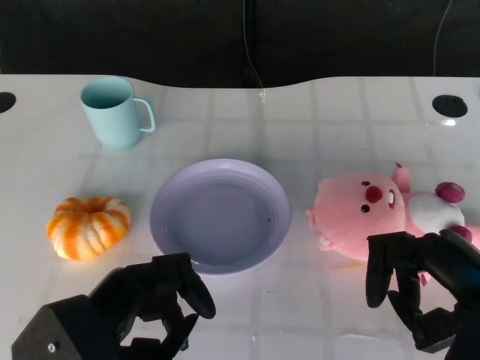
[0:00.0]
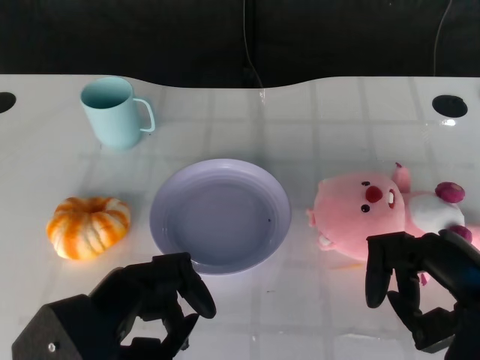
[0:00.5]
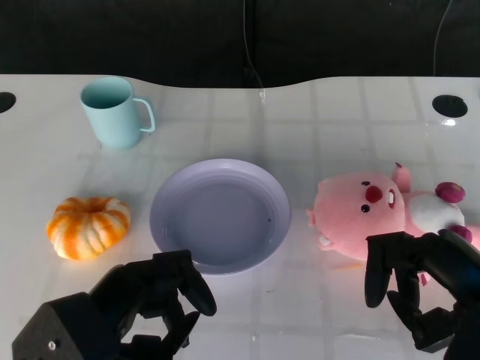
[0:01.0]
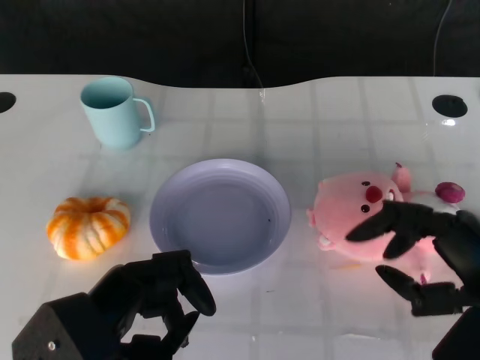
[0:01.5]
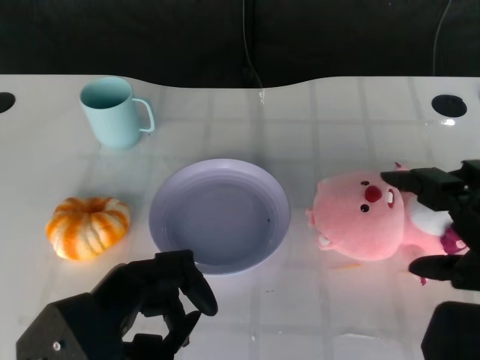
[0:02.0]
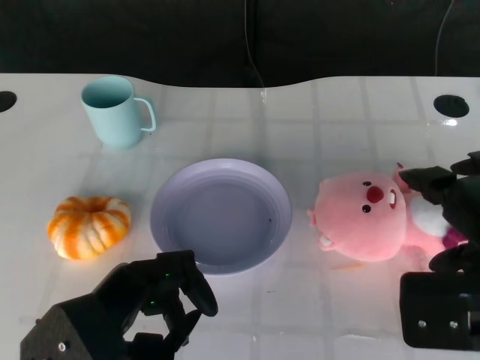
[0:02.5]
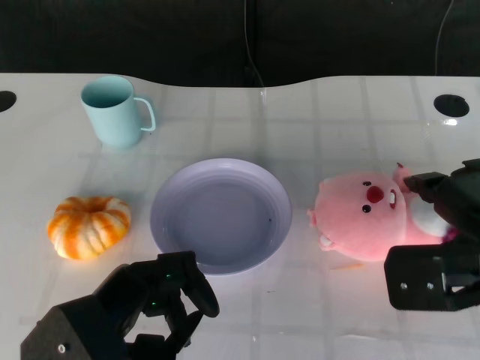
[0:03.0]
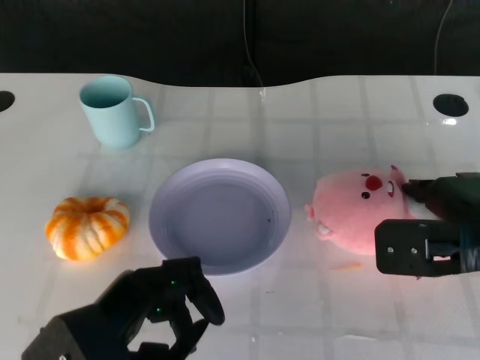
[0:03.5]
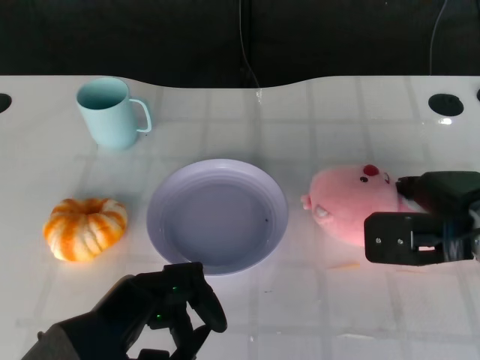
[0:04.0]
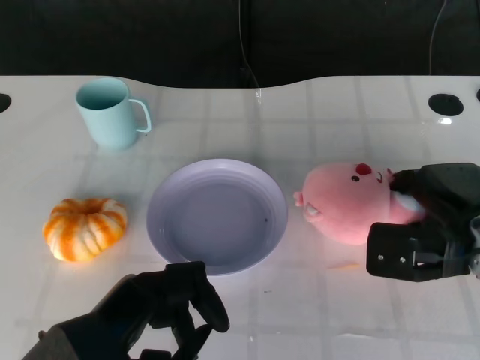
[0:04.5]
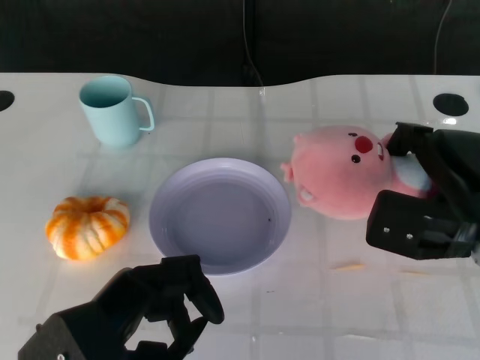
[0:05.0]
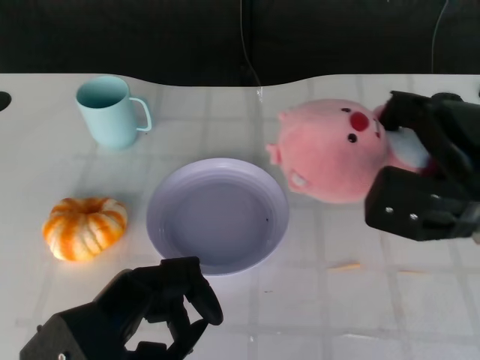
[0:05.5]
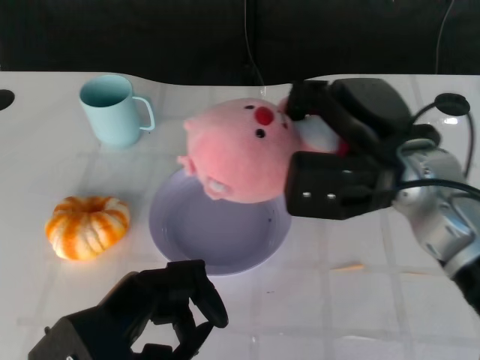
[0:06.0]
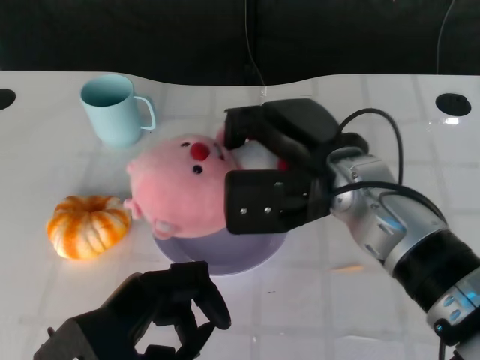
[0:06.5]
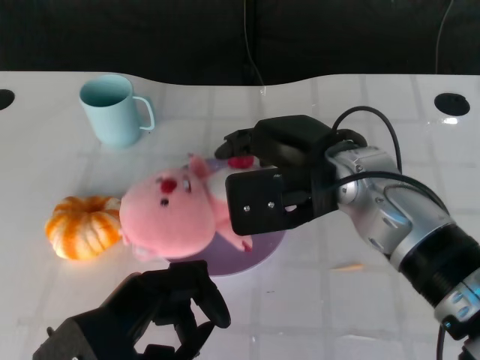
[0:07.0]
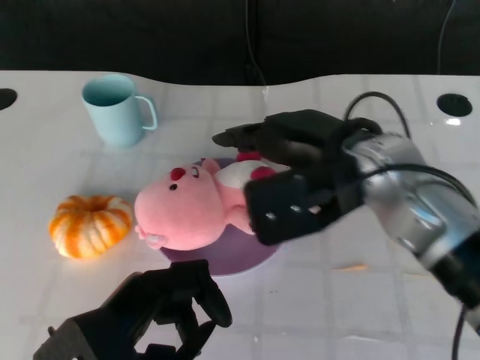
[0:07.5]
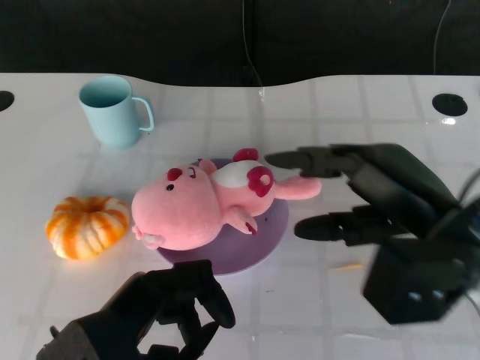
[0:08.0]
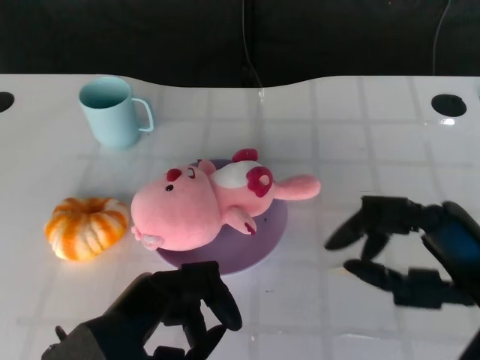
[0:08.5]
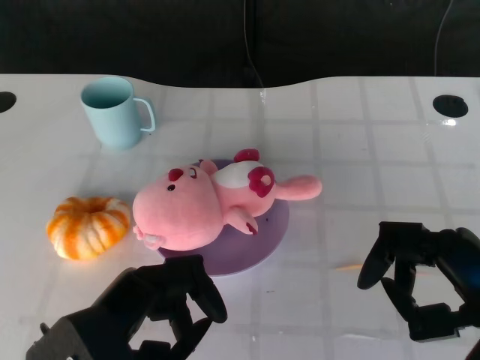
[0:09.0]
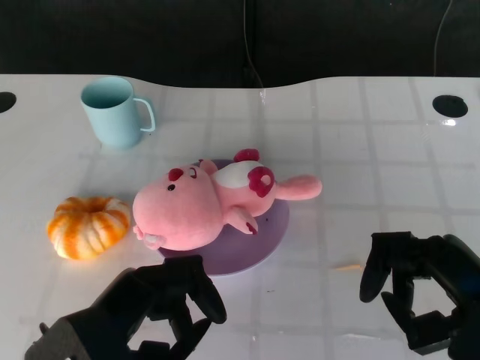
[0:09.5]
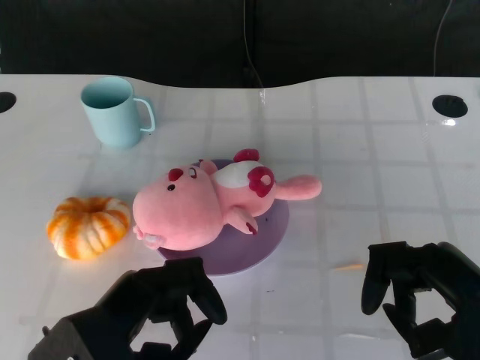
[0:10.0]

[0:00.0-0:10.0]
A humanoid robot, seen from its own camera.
Task of the whole recording: Pick up the doll on the other side of the plate and place it into the plate.
Step, 0:01.5 to 0:04.5: Grasp the pink doll with the right gripper.
Step, 0:05.0 to 0:07.5: Place the pink doll into the plate with the right gripper.
0:02.0 to 0:04.0: The right hand moves forward and downward, approximately 15 cm.
0:04.0 to 0:06.0: The right hand is displaced to the left and upward by some 10 cm.
0:06.0 to 0:08.0: The right hand heads backward, covering some 5 cm.
0:08.0 to 0:10.0: The right hand moves backward, to the right and downward, approximately 10 cm.

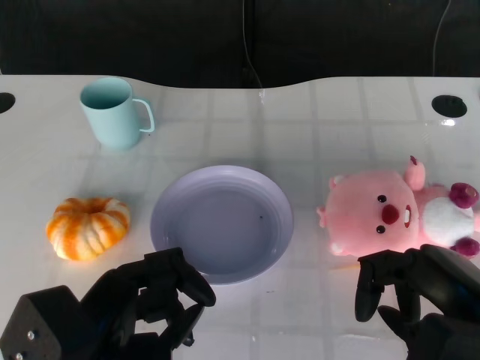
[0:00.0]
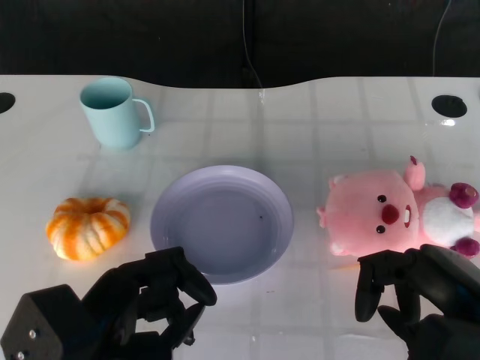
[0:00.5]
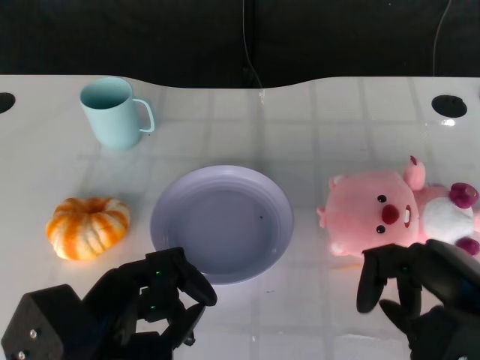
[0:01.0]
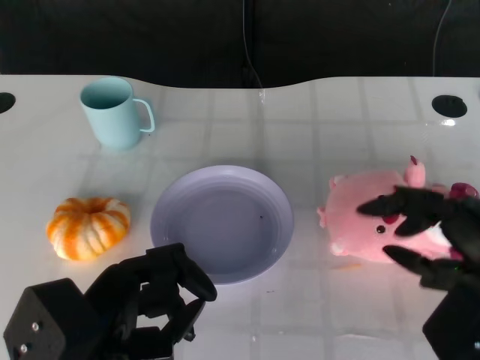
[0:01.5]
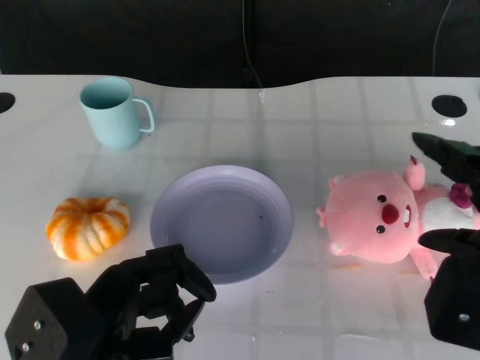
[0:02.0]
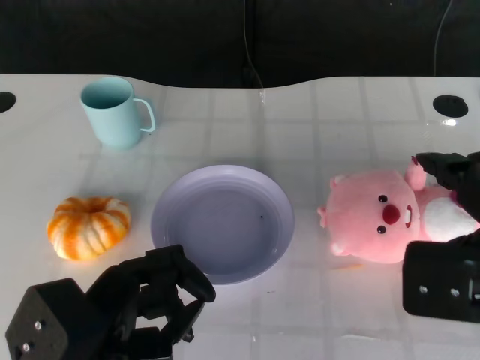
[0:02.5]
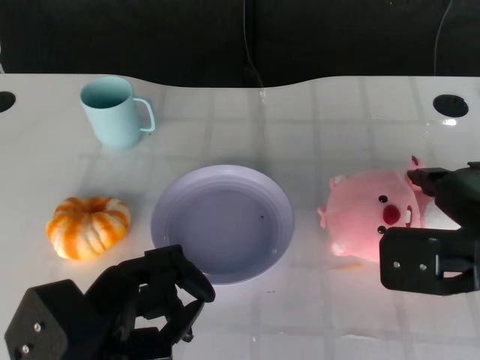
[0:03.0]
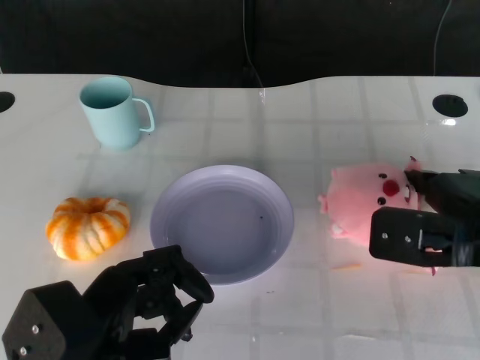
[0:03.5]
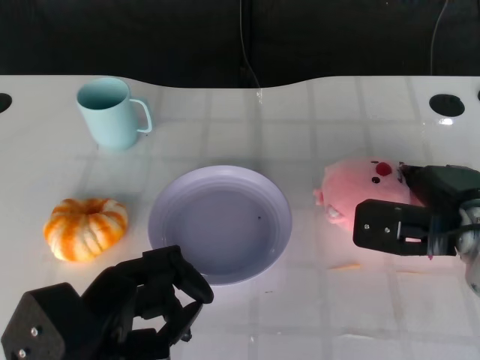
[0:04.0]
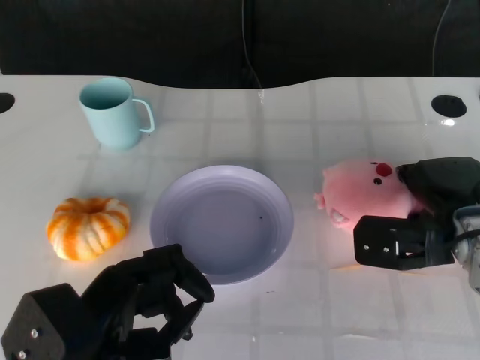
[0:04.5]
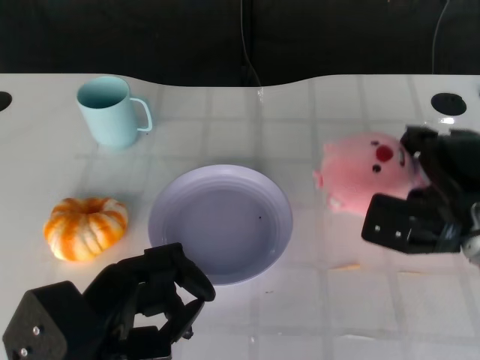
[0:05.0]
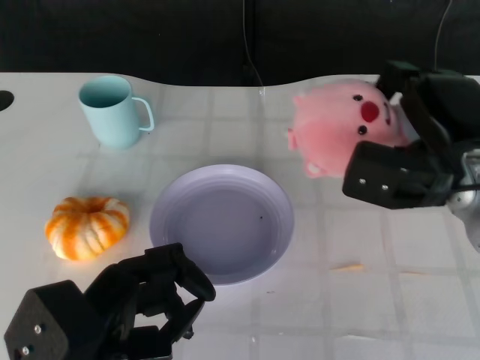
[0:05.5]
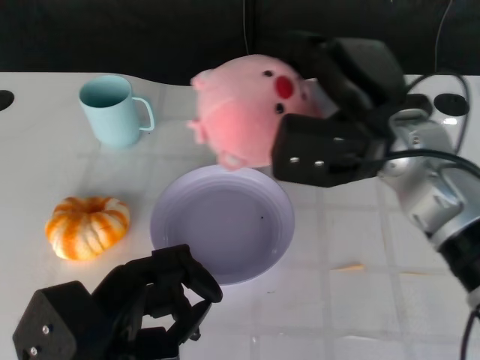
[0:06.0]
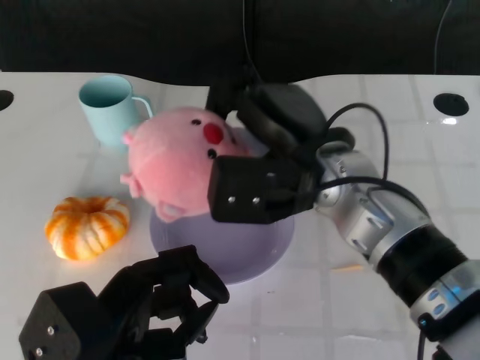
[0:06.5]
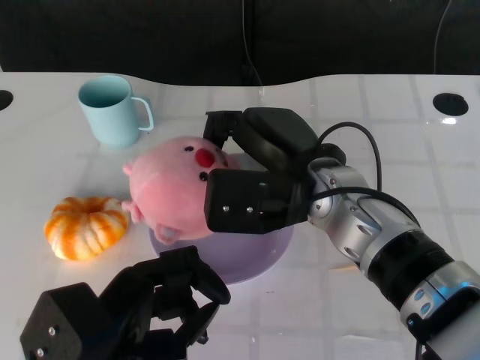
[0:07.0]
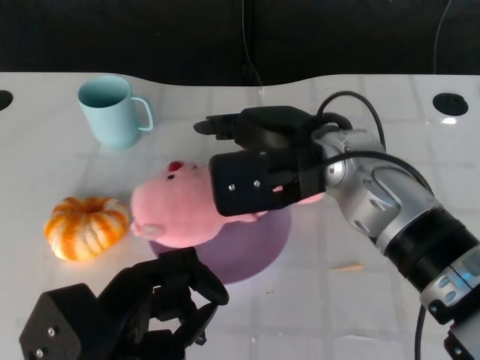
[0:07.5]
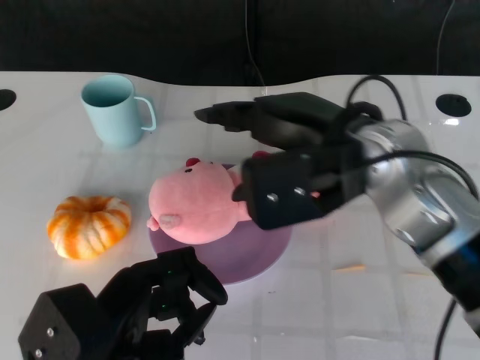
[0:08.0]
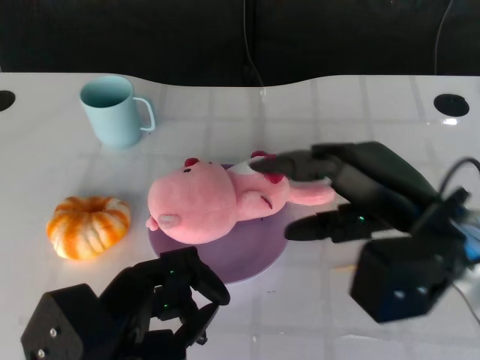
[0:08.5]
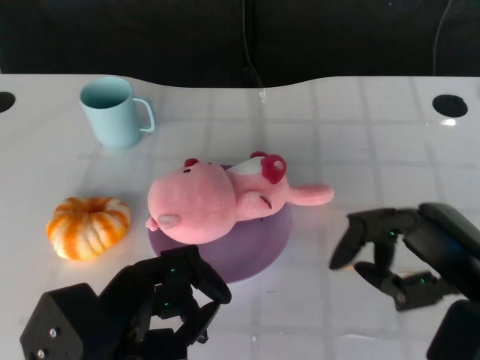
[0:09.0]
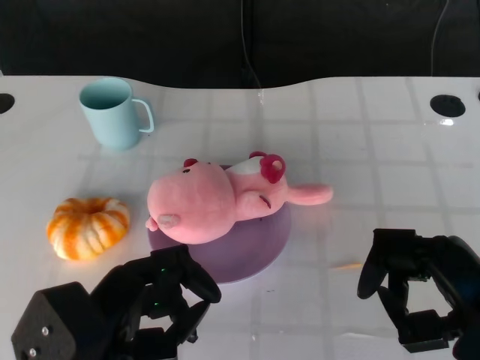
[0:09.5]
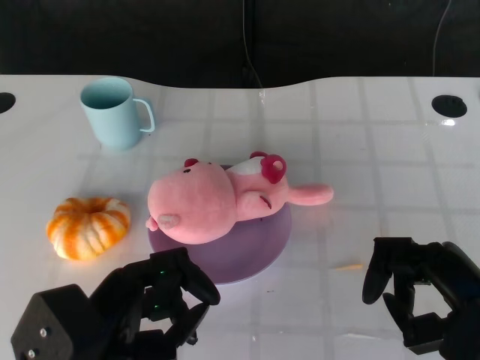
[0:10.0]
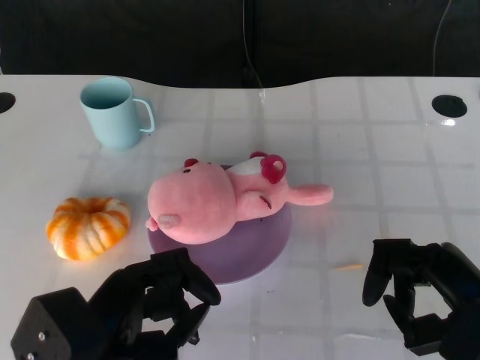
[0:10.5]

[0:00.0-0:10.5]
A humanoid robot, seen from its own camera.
Task of the whole recording: Pick up the doll on the other side of the plate and place it into the plate.
Step, 0:01.0 to 0:04.5: Grasp the pink doll with the right gripper.
Step, 0:05.0 to 0:07.0: Place the pink doll into the plate with the right gripper.
0:02.0 to 0:04.0: The right hand goes roughly 15 cm forward and downward.
0:04.0 to 0:06.5: The right hand travels to the left and upward by some 15 cm.
0:06.5 to 0:08.5: The right hand shifts roughly 10 cm to the right and backward.
0:08.5 to 0:10.5: The right hand travels backward, downward and to the right by roughly 10 cm.

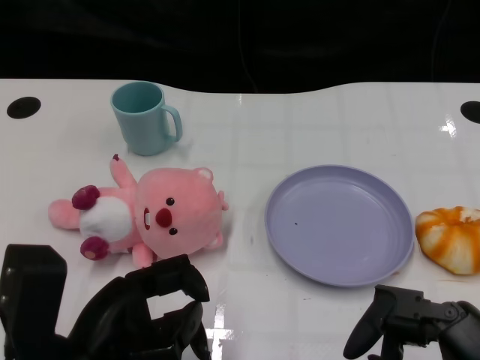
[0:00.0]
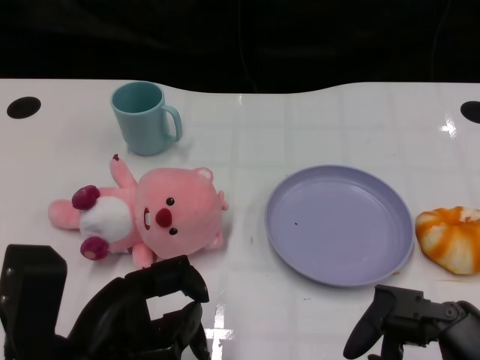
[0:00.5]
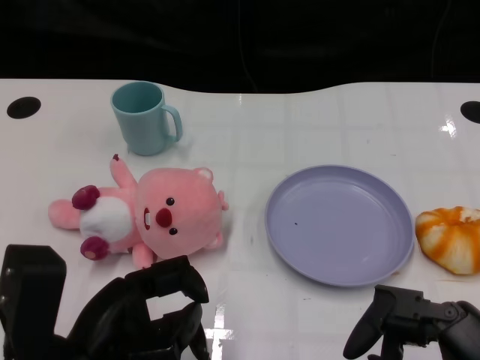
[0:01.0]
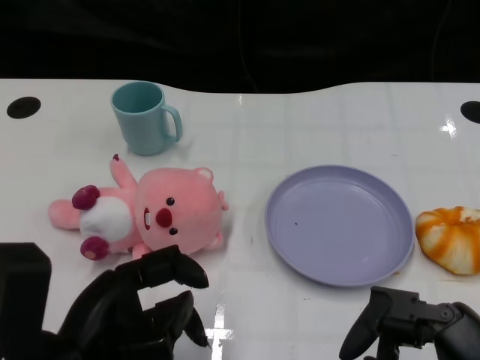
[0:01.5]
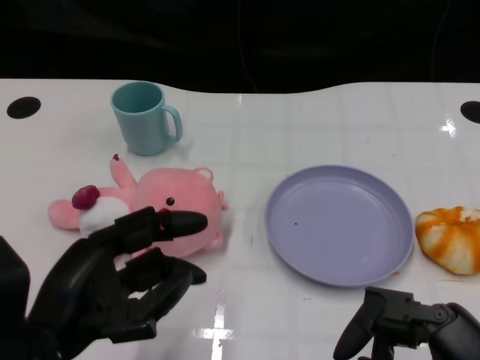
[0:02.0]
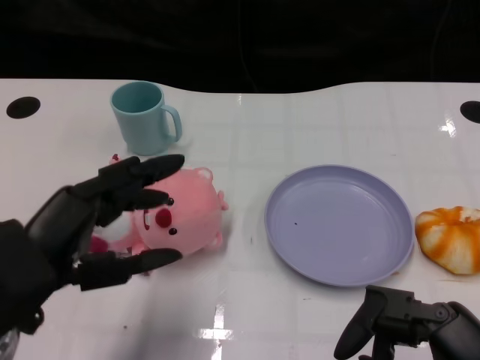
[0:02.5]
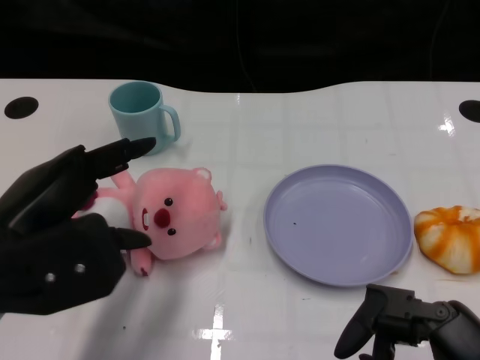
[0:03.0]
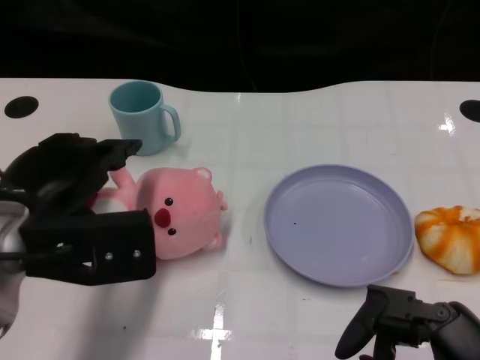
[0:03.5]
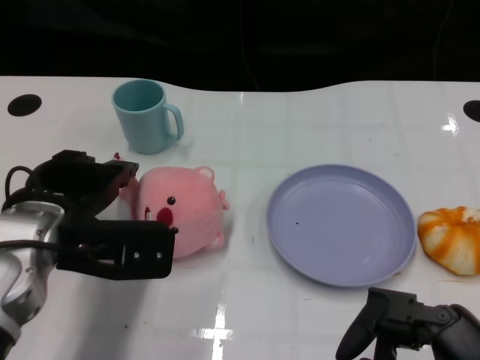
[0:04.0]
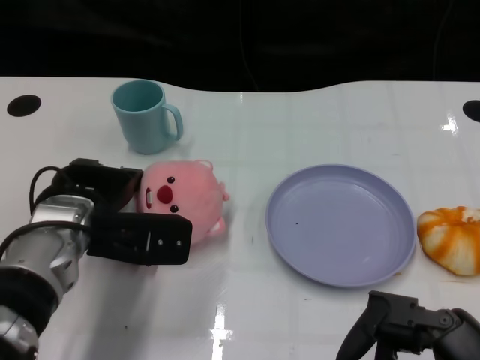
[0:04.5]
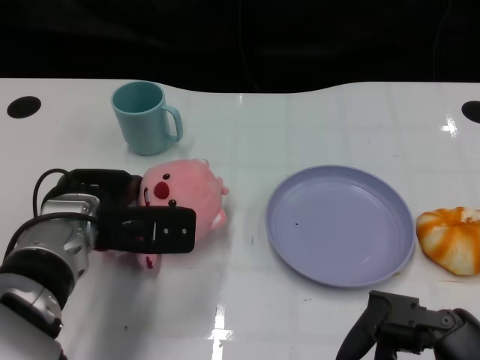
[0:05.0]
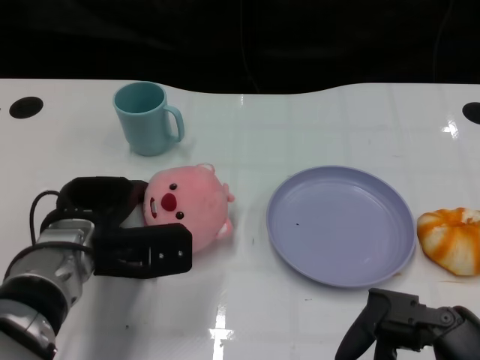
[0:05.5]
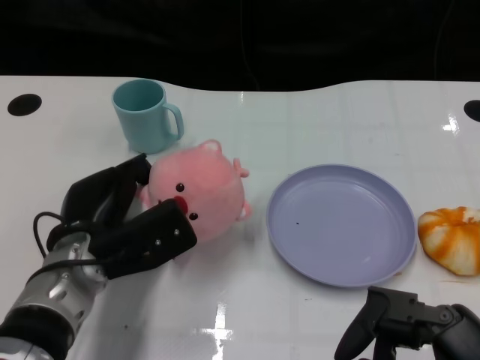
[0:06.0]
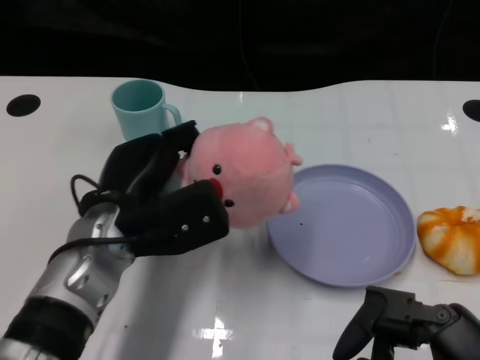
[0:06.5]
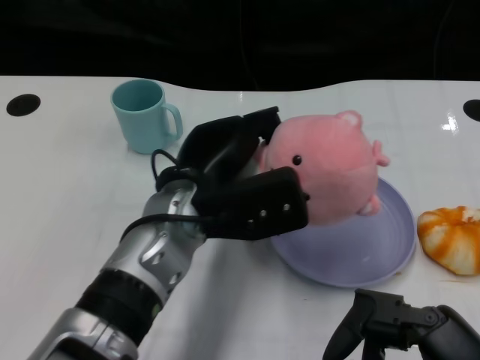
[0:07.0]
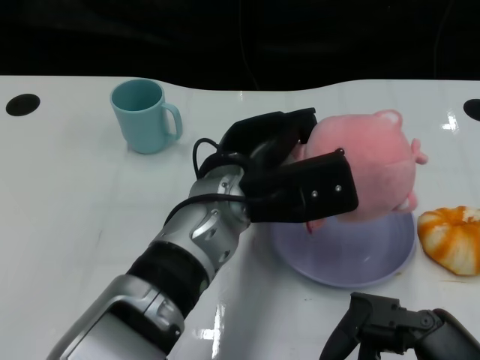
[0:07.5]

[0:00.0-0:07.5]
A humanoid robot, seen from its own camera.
Task of the whole recording: Pick up the doll on one side of the plate and place it into the plate.
Step, 0:01.5 to 0:05.5: Grasp the pink doll with the left gripper.
0:02.0 to 0:04.0: The left hand is displaced forward by some 10 cm.
0:04.0 to 0:05.5: The left hand shifts roughly 5 cm downward.
0:05.5 to 0:07.5: The left hand heads to the right and upward, covering some 15 cm.
